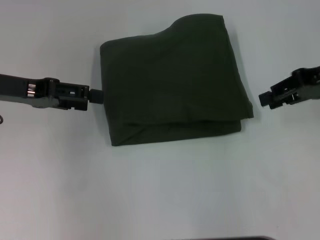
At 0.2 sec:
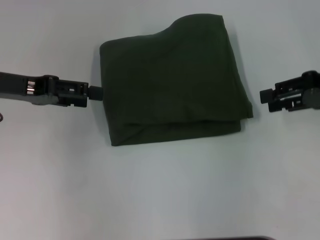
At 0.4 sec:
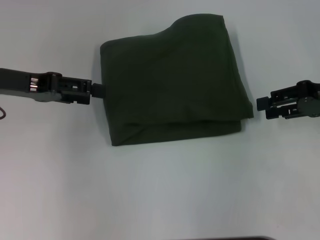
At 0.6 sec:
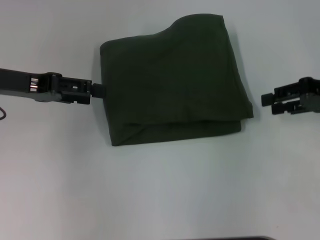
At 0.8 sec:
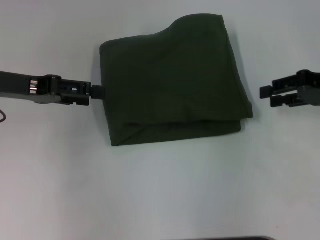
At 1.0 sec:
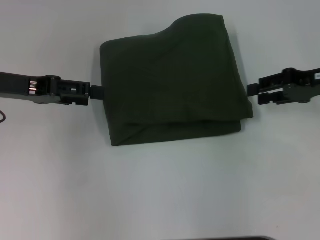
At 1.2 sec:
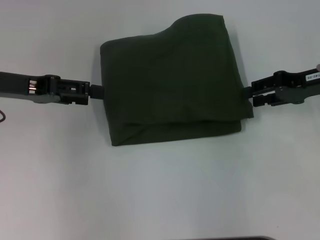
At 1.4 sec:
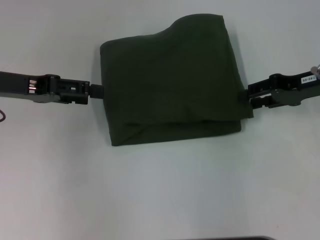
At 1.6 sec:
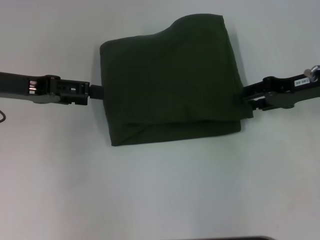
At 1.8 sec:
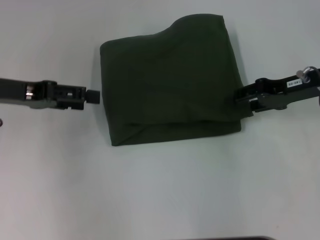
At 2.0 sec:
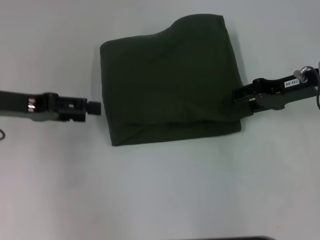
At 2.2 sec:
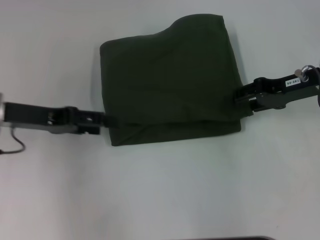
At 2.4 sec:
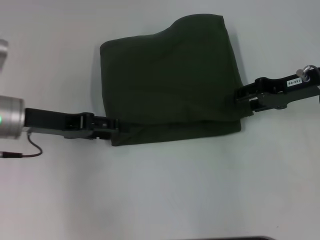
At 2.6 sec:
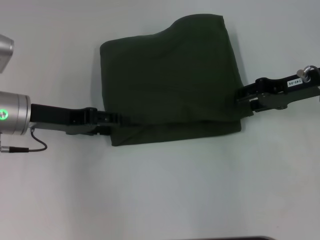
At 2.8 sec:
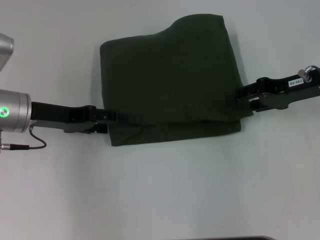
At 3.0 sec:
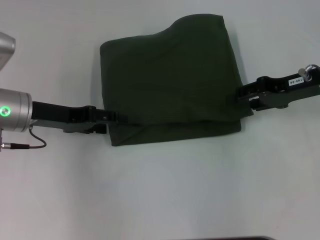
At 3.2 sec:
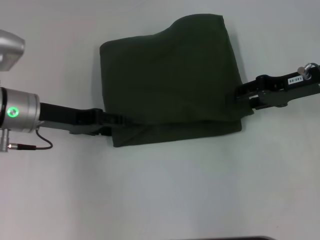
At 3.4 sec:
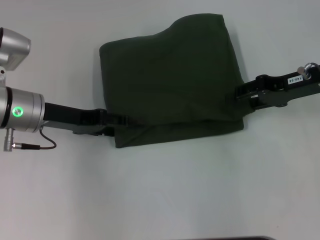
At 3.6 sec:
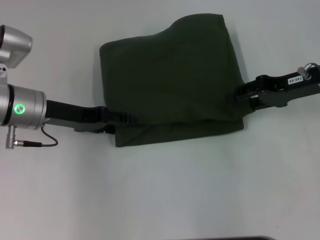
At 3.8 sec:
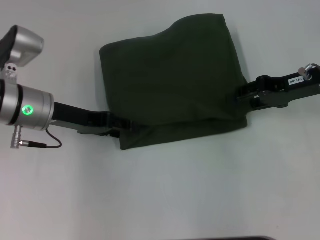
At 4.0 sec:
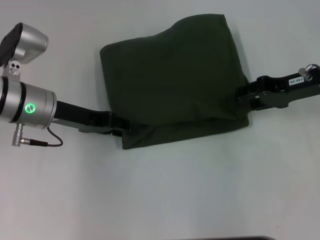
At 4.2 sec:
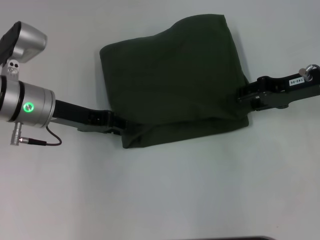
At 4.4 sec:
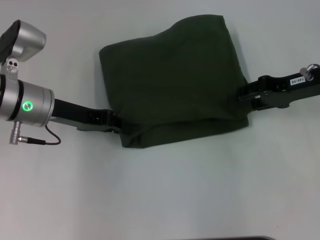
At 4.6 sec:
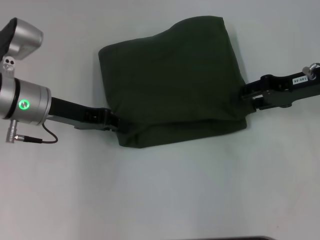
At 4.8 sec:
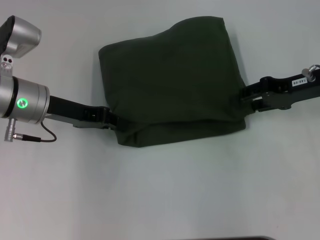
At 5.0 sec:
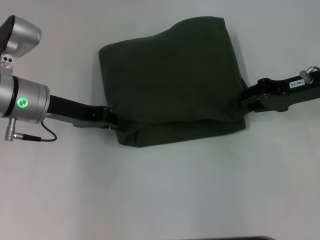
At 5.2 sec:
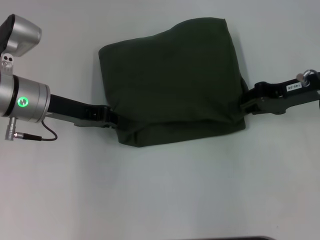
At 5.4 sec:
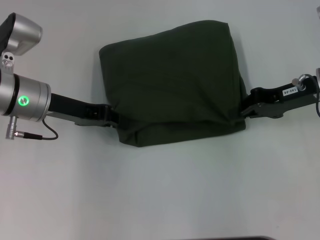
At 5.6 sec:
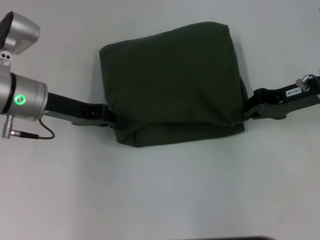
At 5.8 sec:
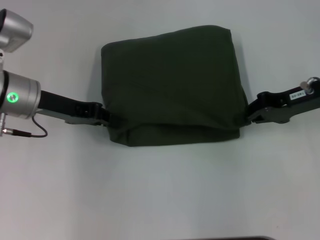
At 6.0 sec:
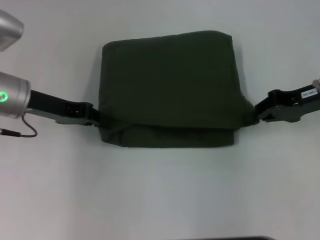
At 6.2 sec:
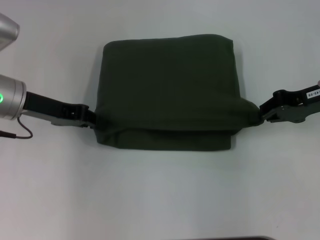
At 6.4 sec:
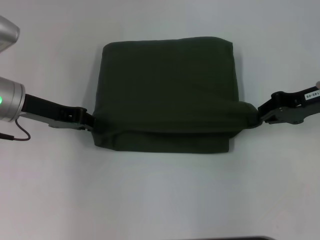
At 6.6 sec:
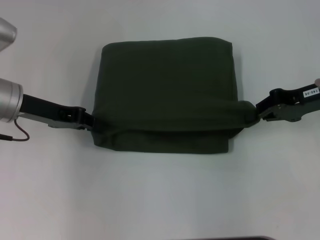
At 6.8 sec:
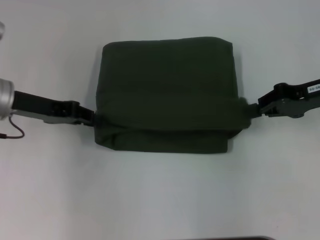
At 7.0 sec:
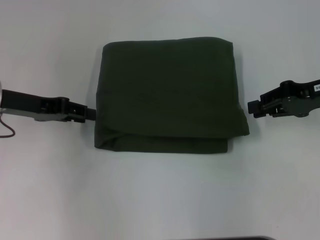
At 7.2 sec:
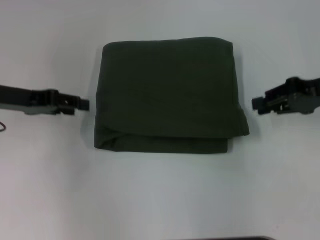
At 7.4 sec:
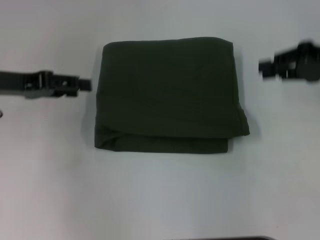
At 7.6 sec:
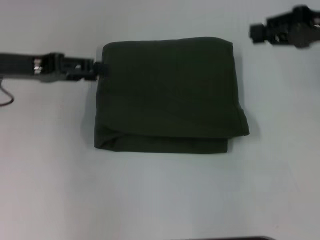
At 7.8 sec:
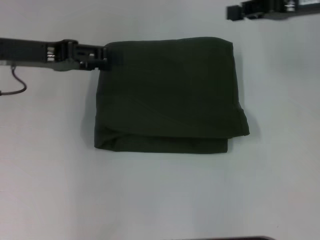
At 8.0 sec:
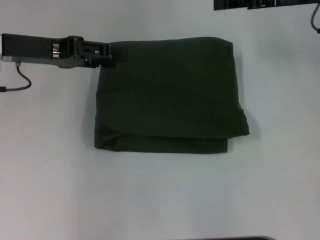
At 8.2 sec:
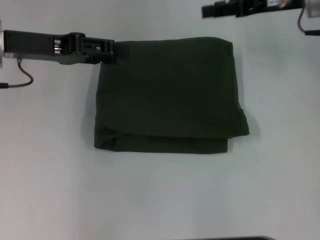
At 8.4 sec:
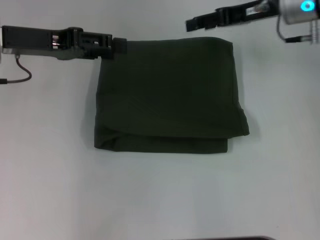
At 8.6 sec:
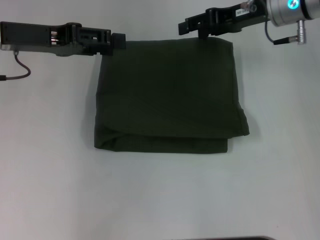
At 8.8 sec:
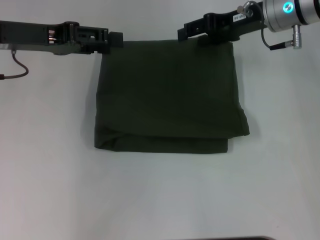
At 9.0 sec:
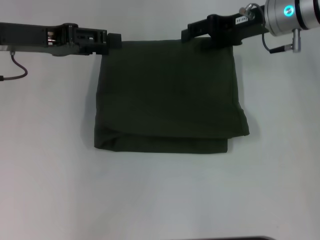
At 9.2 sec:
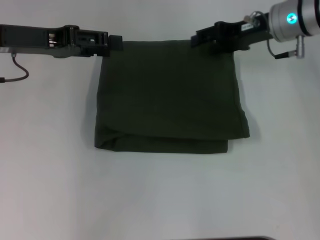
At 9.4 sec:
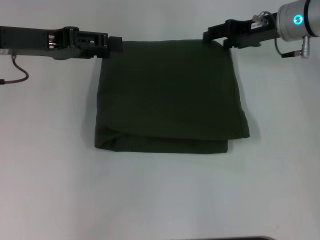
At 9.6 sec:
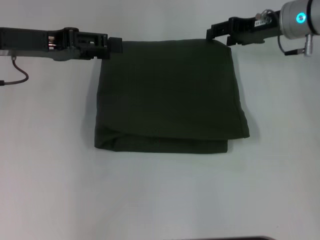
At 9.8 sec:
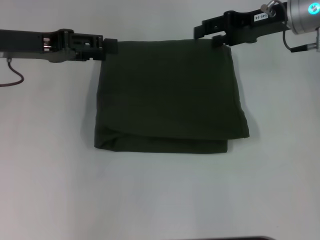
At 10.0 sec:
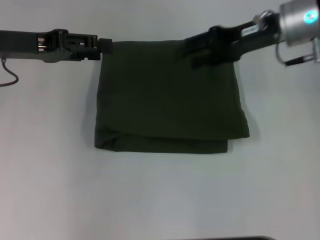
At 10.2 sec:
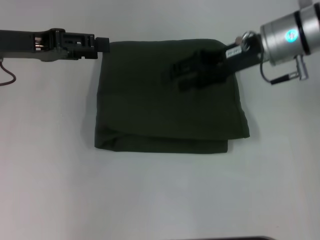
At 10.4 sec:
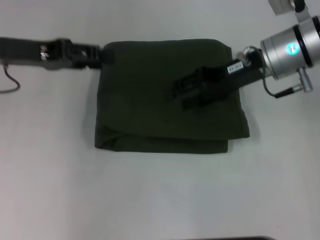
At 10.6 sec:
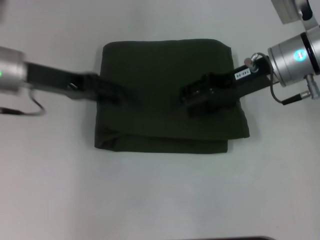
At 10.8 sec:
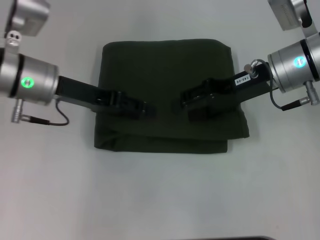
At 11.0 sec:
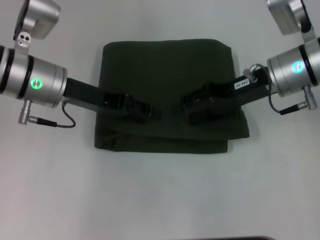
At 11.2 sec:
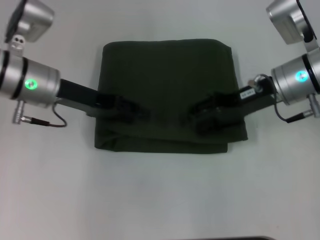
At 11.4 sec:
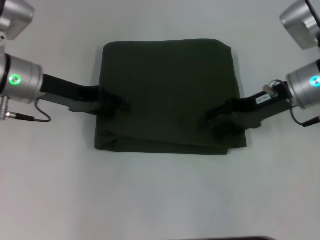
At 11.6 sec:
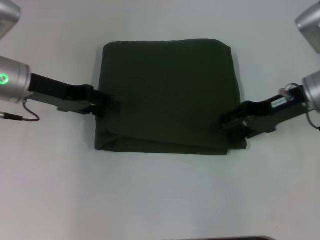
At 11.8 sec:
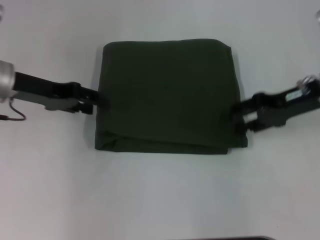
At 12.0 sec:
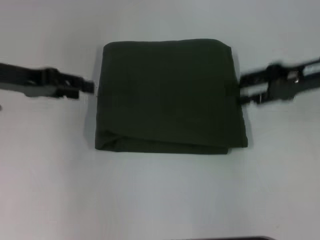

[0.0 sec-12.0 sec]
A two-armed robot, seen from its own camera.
0.0 sec to 1.6 sec: The right gripper moves downward, roughly 5 cm.
1.6 sec to 3.0 sec: The left gripper is displaced downward by about 5 cm.
3.0 sec to 4.4 sec: The left gripper closes.
4.4 sec to 6.0 sec: The right gripper closes up.
6.0 sec to 7.6 sec: Both grippers move upward, some 5 cm. The left gripper opens its fingers.
7.6 sec to 9.0 sec: The right gripper moves to the left and forward, about 10 cm, and opens its fingers.
9.0 sec to 10.4 sec: The right gripper heads backward, covering approximately 5 cm.
10.4 sec to 12.0 sec: The right gripper moves to the right, about 10 cm. The left gripper moves some 10 cm to the right and comes back.

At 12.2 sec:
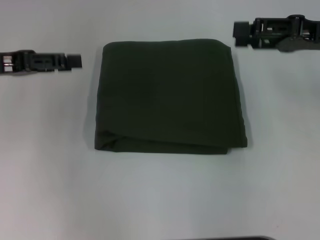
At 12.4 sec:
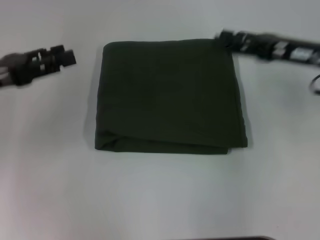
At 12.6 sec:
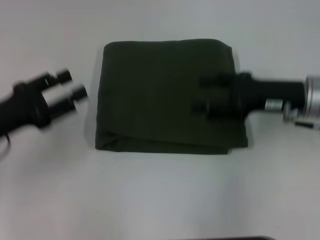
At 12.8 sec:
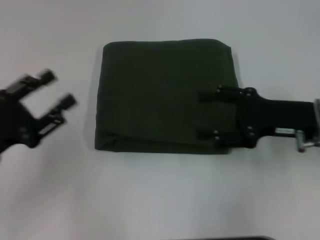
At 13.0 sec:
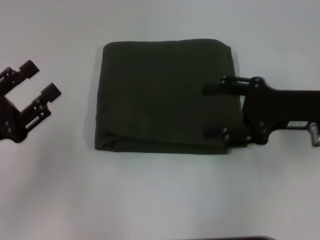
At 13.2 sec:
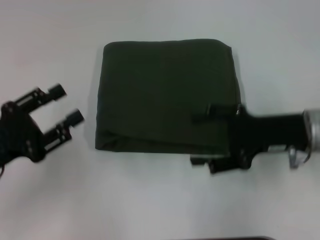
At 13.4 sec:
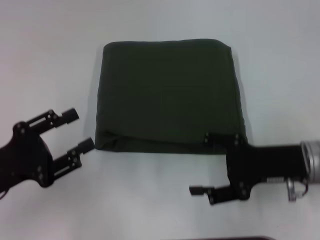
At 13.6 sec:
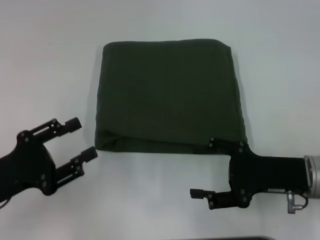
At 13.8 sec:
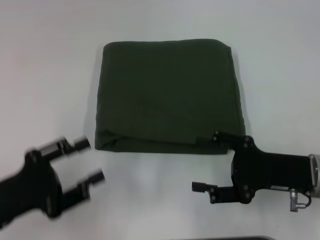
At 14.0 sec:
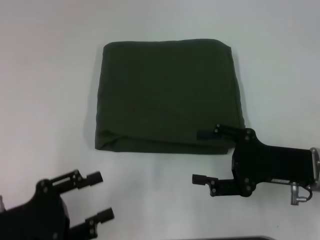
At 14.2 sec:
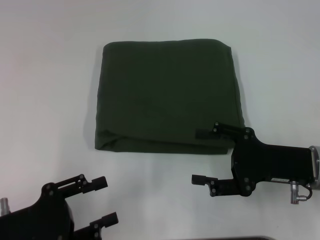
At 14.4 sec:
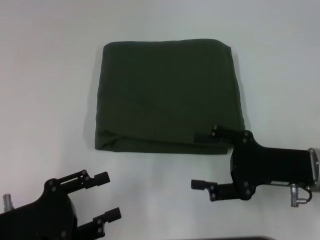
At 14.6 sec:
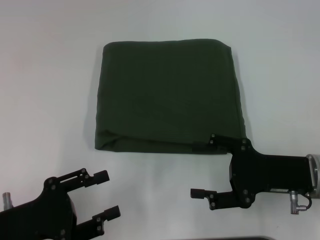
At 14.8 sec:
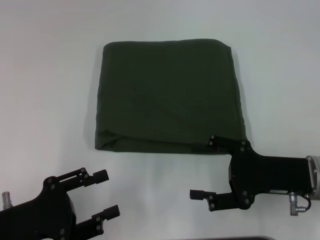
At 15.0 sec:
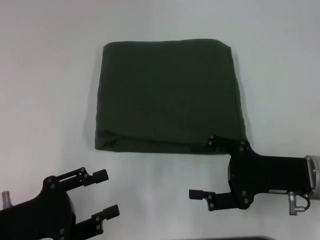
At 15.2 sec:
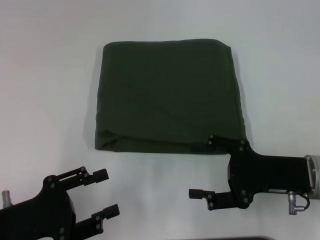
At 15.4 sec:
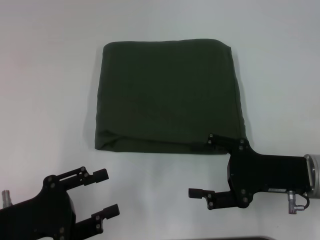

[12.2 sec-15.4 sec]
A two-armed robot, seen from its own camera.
12.2 sec to 13.8 sec: The right gripper moves backward, downward and to the left, about 20 cm, while the left gripper moves backward and downward, about 20 cm.
13.8 sec to 15.4 sec: The grippers stay close to where they were, moving slightly.
